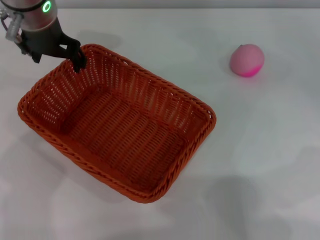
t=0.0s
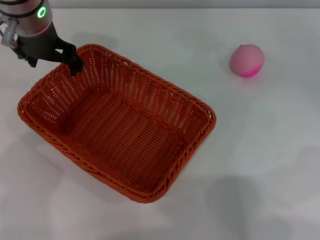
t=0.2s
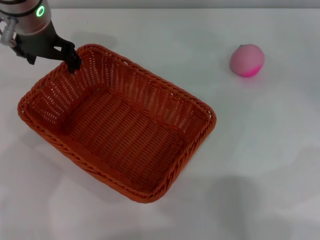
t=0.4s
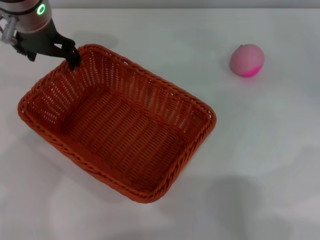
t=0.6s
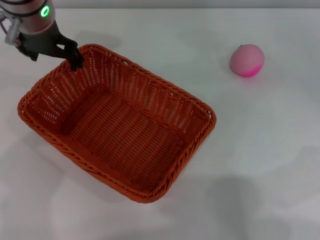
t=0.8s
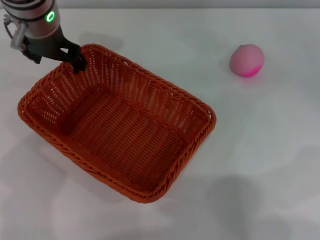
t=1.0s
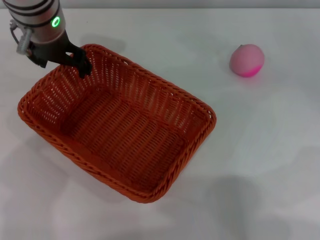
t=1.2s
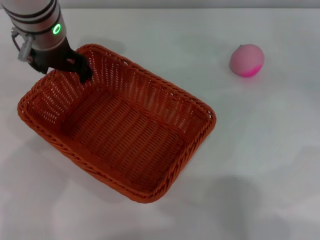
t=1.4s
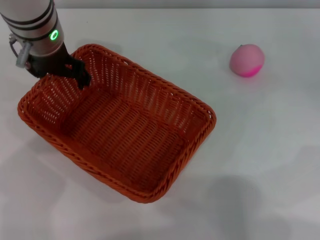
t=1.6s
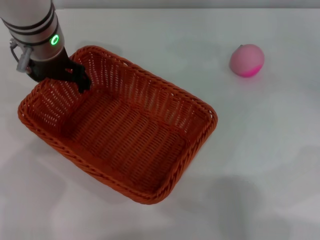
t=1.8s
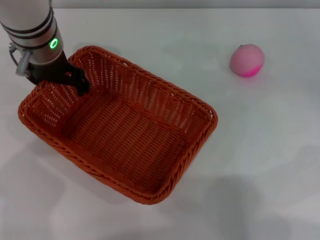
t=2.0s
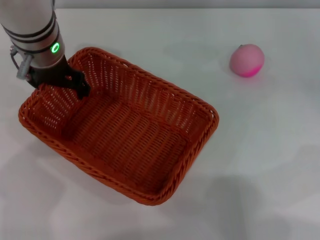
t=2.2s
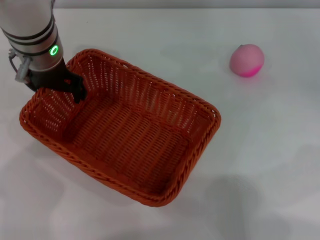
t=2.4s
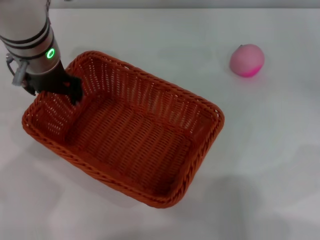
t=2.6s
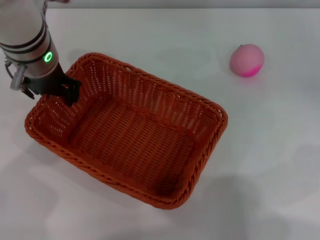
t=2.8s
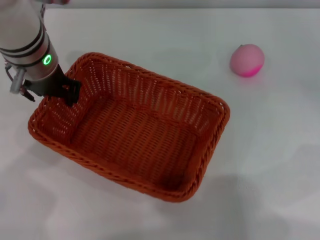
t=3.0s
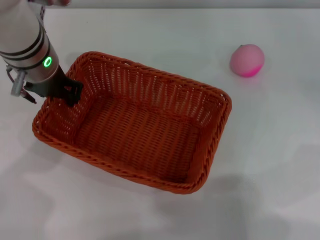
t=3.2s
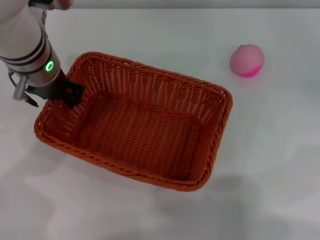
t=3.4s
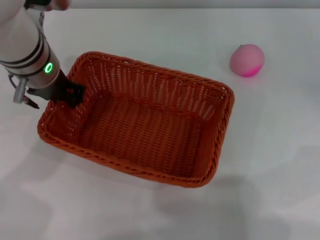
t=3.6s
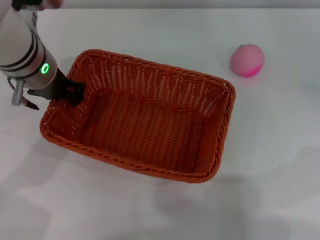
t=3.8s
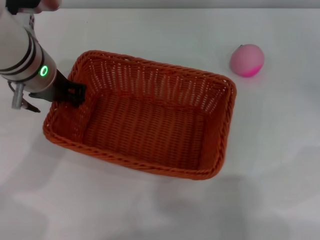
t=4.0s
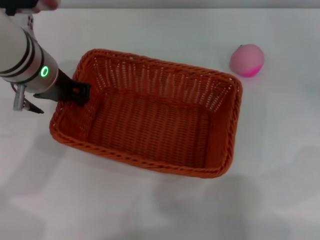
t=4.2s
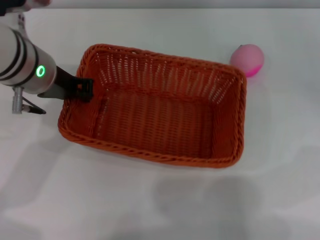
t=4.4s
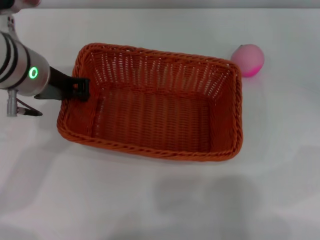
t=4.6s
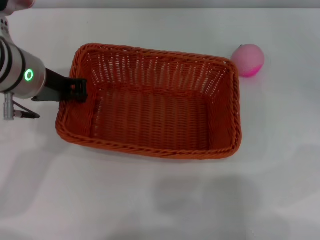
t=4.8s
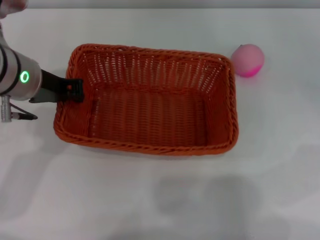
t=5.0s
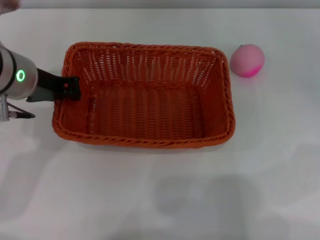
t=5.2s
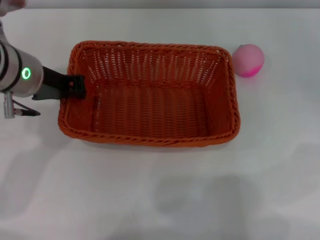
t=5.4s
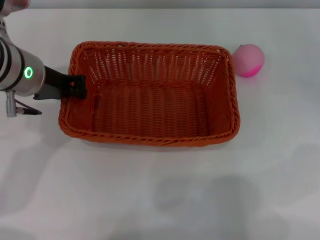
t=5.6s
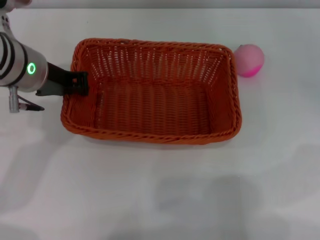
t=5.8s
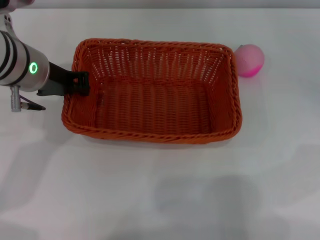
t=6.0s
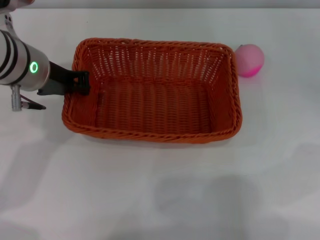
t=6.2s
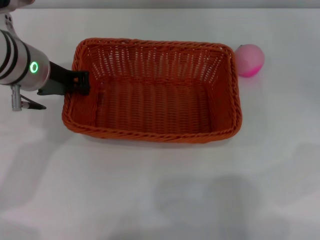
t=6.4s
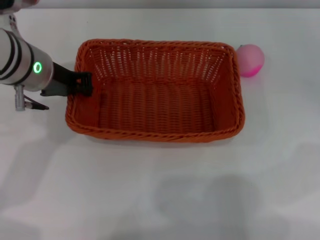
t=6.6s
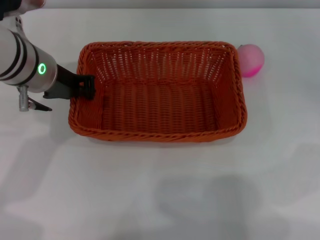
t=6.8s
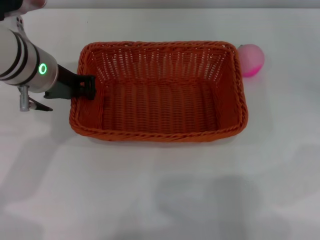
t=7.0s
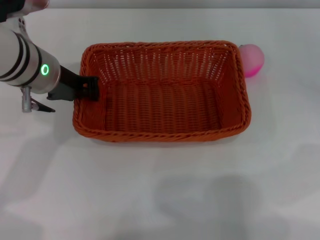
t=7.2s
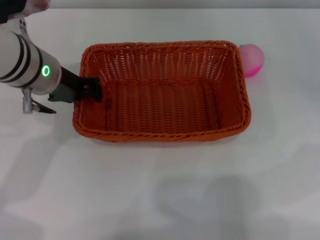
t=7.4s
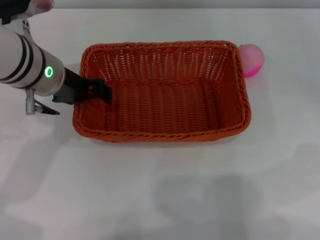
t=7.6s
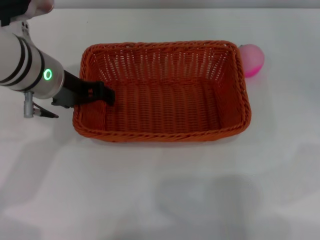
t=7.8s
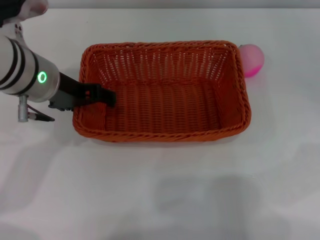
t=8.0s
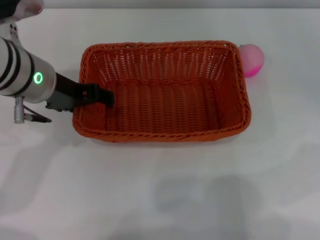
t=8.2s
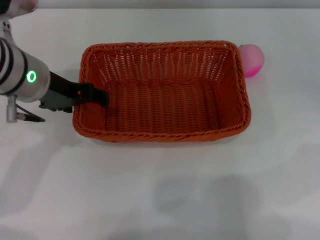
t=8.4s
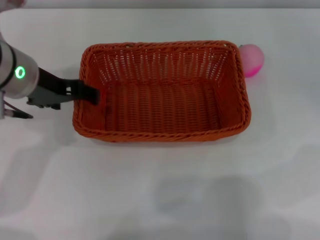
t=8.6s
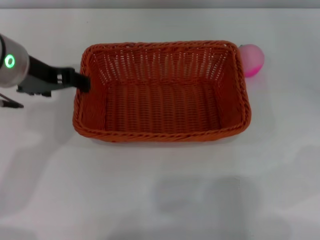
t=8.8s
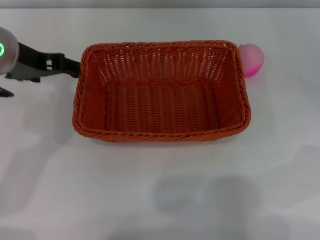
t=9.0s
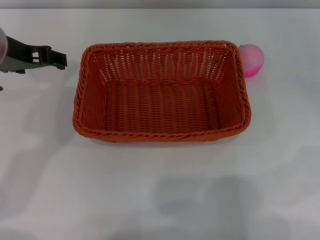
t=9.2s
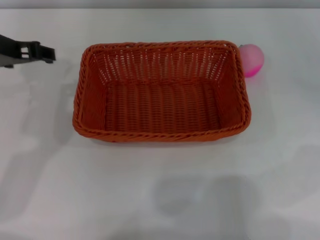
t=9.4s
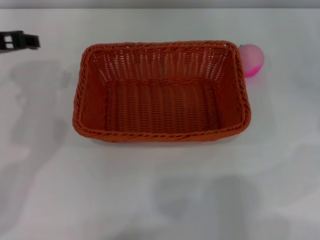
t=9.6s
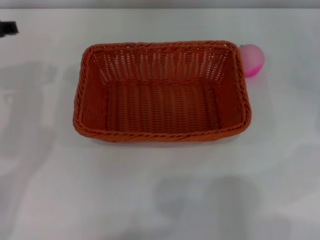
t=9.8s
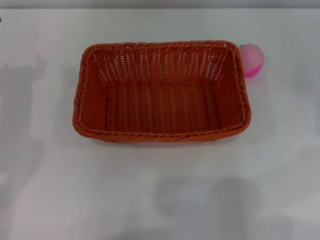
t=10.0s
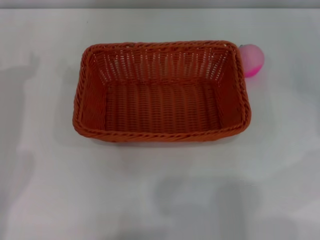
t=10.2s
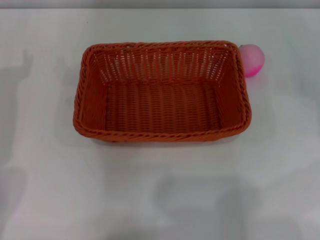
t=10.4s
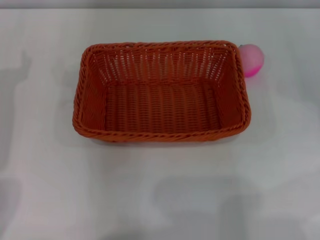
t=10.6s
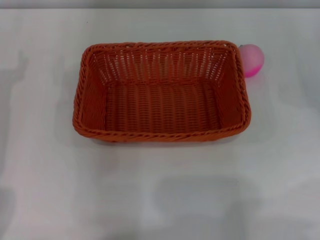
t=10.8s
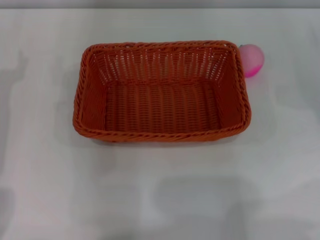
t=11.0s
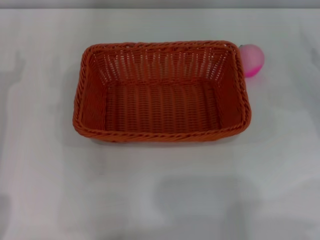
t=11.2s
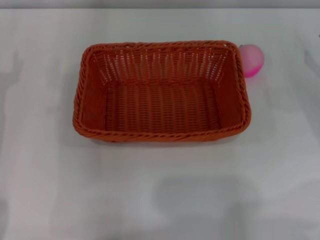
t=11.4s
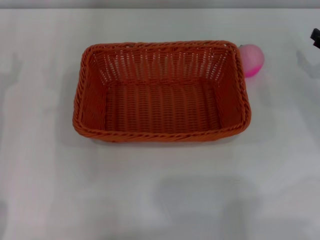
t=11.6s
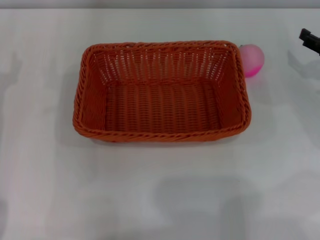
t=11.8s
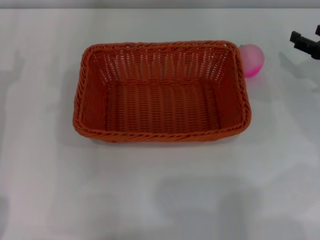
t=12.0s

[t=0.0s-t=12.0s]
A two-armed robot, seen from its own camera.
Step, t=0.0s to t=4.8s: Pick up the light basket with the left gripper.
Step, t=5.0s to t=9.0s: Place the light basket in the center of view with the right gripper.
t=0.0s to t=1.6s: The grippers move only a little.
t=1.6s to t=3.0s: The left gripper closes up.
t=4.4s to t=7.6s: The grippers move only a little.
t=7.6s to t=9.0s: The left gripper is displaced upward by roughly 5 cm, and opens up.
t=9.0s to t=10.4s: The left gripper moves to the left, some 10 cm.

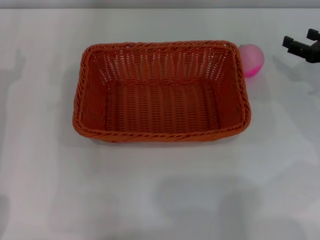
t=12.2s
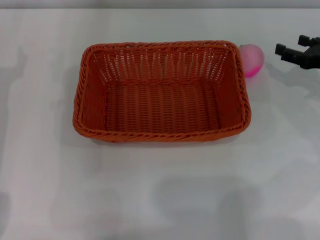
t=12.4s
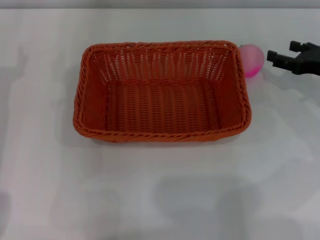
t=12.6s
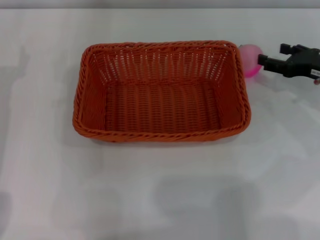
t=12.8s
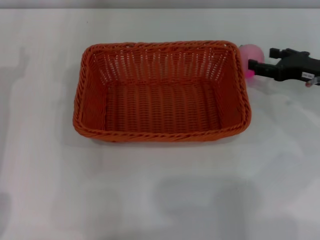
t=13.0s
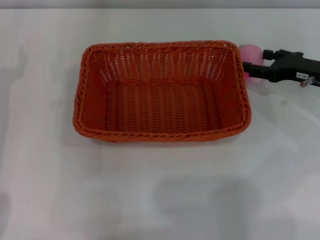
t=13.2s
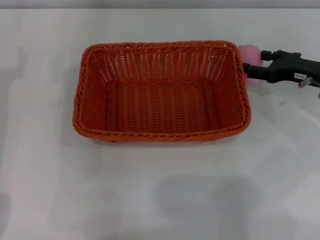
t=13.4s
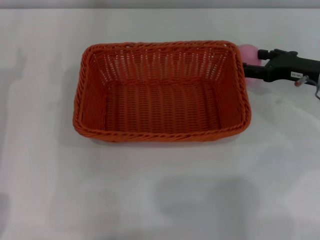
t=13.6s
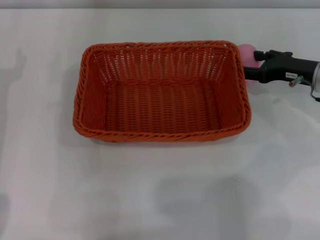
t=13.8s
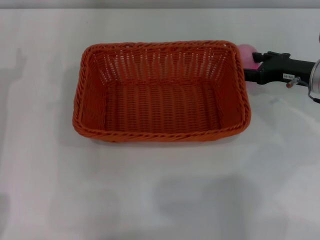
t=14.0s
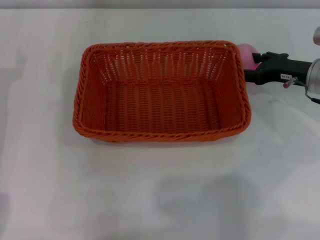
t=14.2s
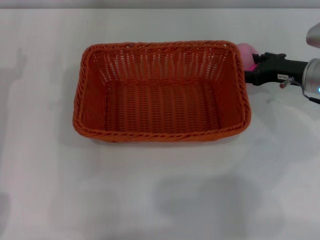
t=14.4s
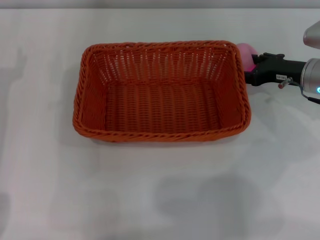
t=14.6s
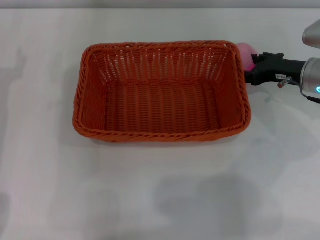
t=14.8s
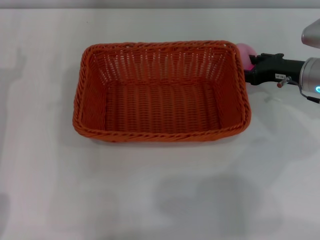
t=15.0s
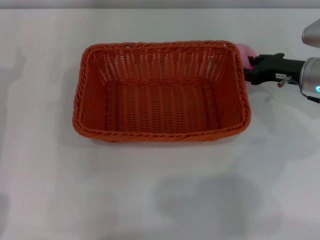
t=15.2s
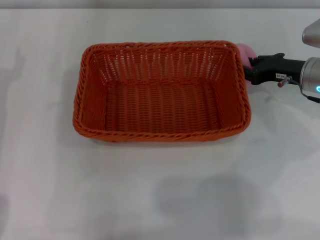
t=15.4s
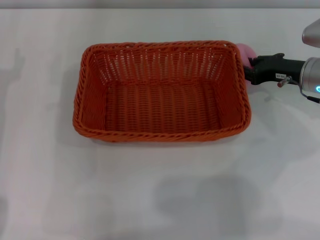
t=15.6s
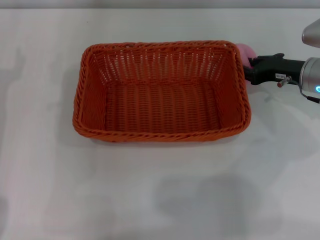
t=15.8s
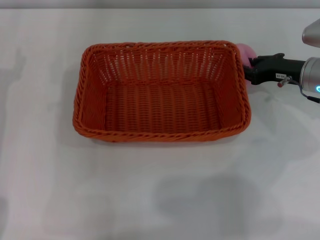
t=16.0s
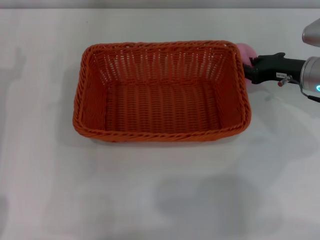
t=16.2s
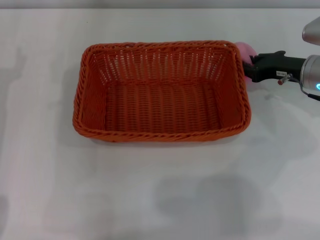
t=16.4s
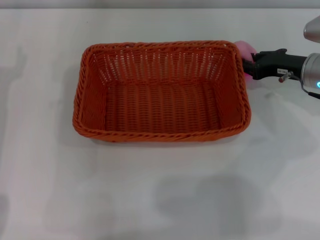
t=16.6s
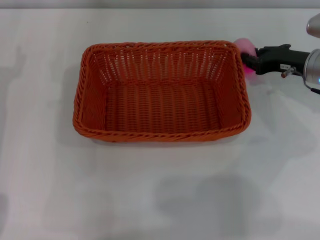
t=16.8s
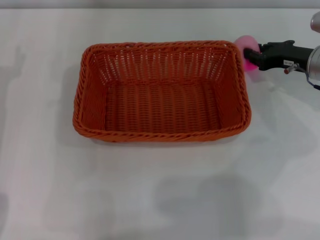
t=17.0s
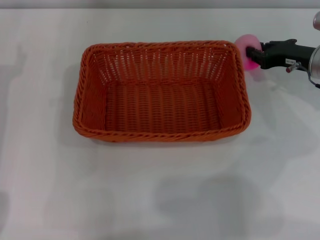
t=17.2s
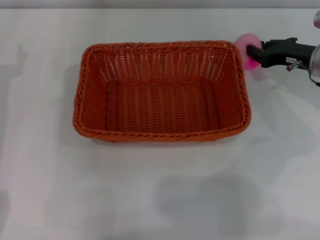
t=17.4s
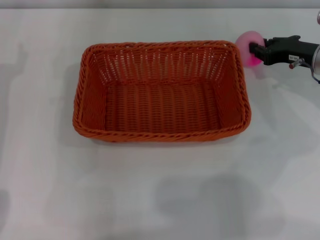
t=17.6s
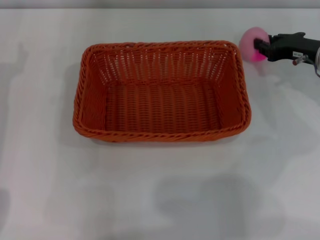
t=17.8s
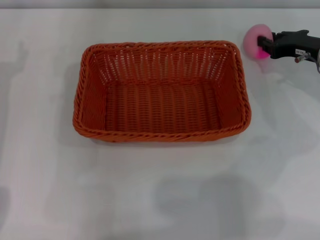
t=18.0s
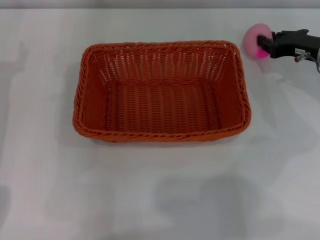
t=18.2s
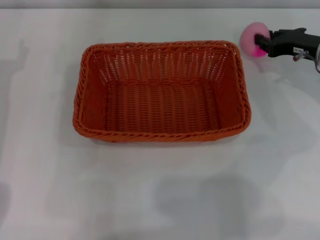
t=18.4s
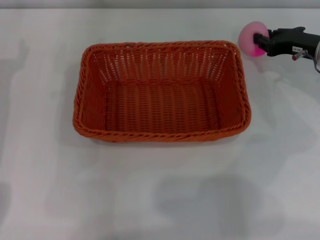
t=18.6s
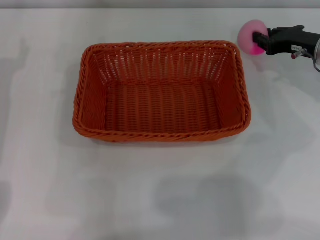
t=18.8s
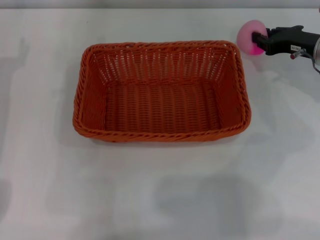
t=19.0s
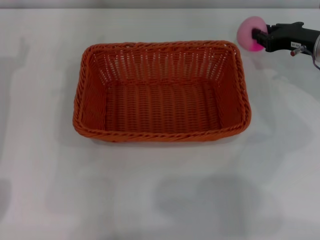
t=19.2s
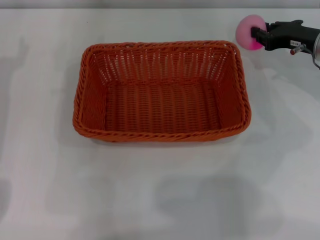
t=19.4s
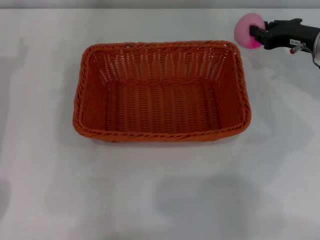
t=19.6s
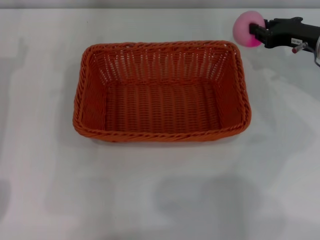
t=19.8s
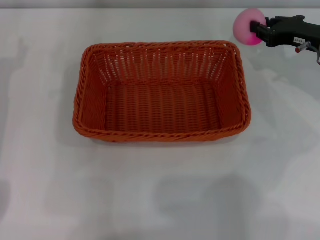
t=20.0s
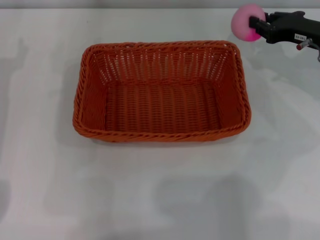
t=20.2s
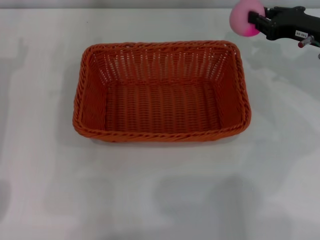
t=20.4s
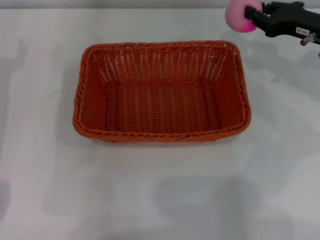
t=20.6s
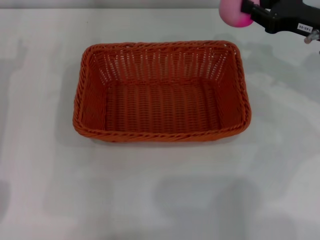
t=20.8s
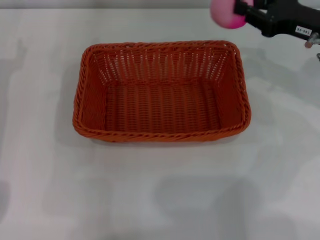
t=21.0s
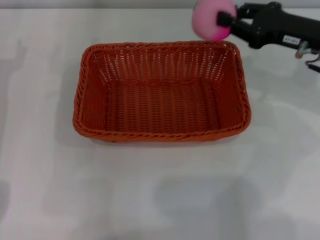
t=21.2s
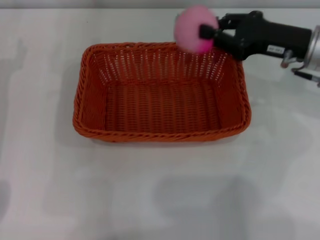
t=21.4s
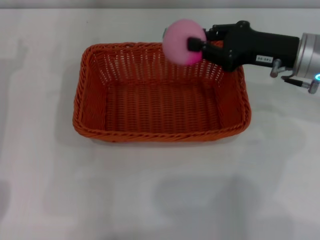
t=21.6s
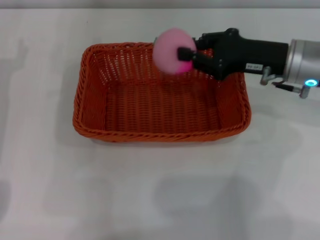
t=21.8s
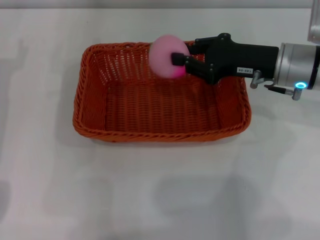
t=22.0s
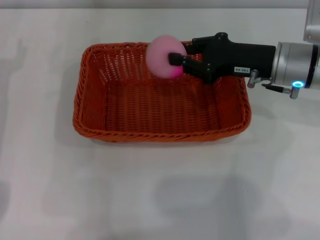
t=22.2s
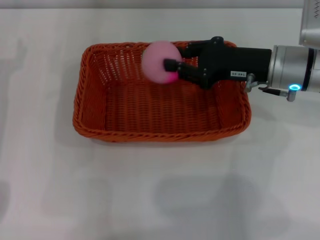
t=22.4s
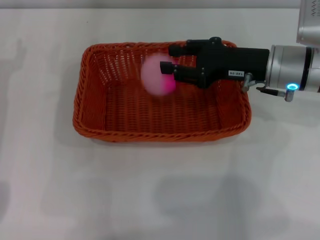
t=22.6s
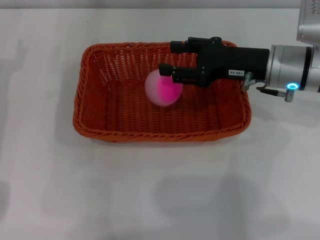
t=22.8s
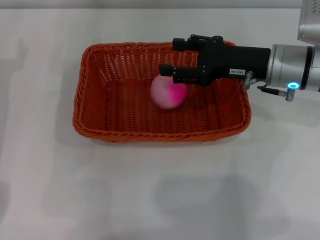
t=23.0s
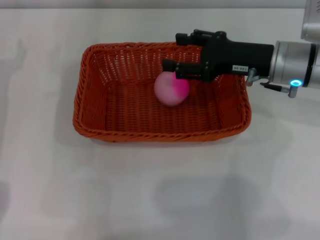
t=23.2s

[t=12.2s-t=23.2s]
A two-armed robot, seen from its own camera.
Step, t=12.2s to t=19.8s: Pick up the peach with the left gripper.
t=12.2s to t=13.8s: The right gripper travels to the left by roughly 5 cm.
t=13.8s to t=15.4s: The right gripper closes up.
t=15.4s to t=17.0s: The right gripper closes its fingers.
t=17.0s to t=20.0s: The grippers move only a little.
t=20.0s to t=21.6s: The right gripper moves to the left, roughly 5 cm.
t=21.6s to t=23.2s: The right gripper opens its fingers.
